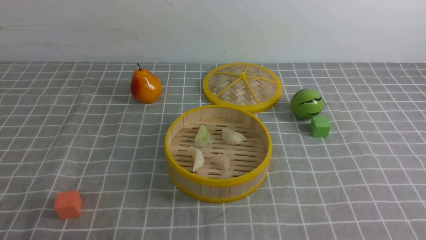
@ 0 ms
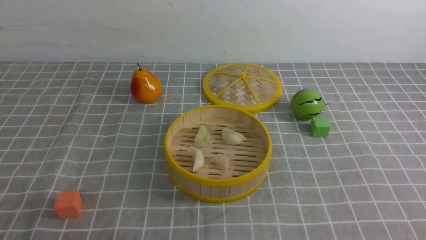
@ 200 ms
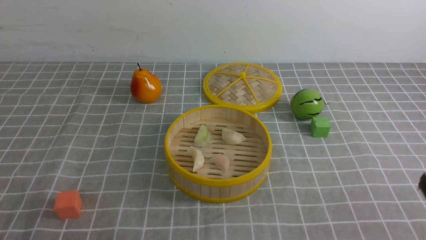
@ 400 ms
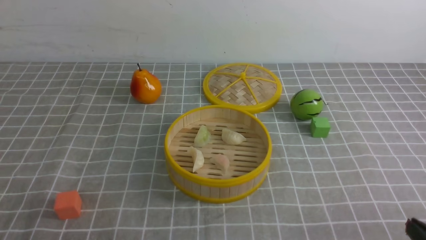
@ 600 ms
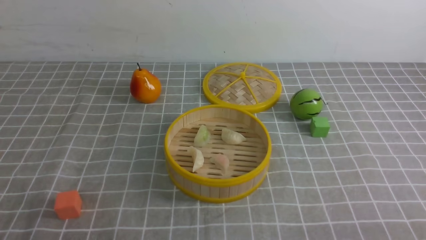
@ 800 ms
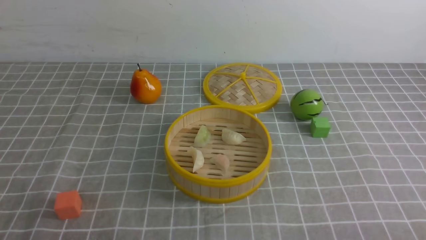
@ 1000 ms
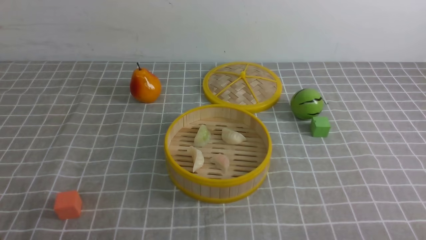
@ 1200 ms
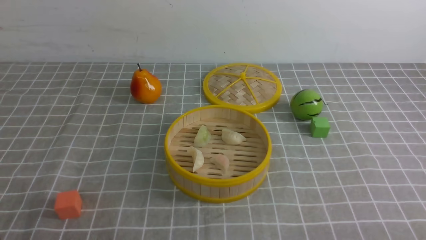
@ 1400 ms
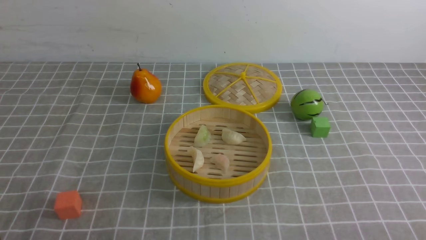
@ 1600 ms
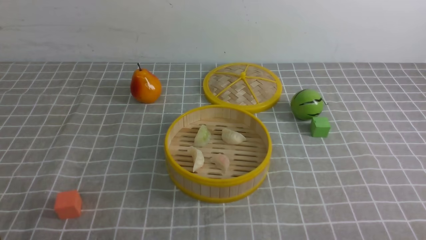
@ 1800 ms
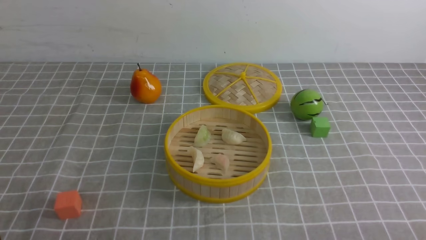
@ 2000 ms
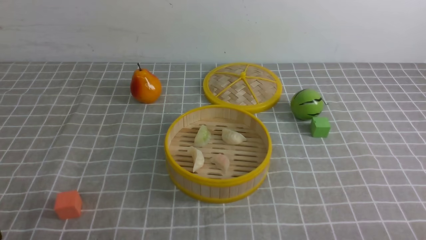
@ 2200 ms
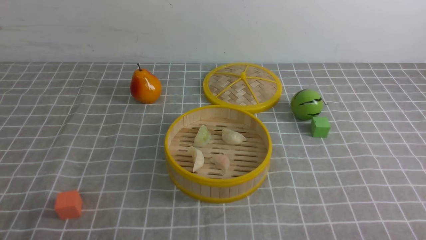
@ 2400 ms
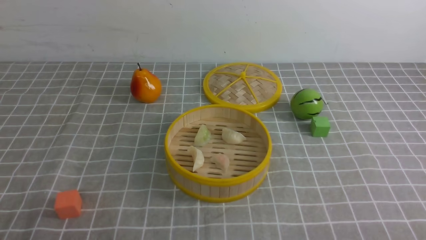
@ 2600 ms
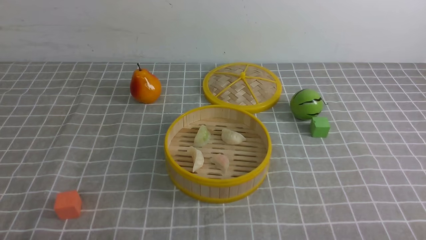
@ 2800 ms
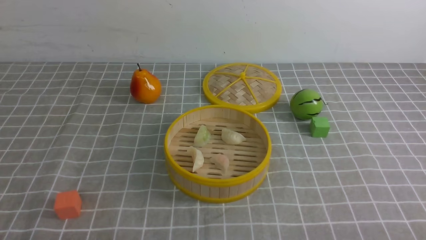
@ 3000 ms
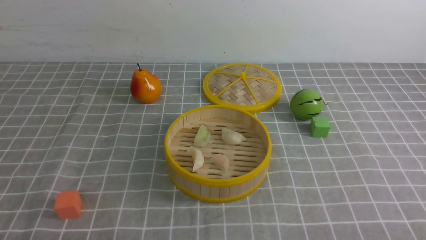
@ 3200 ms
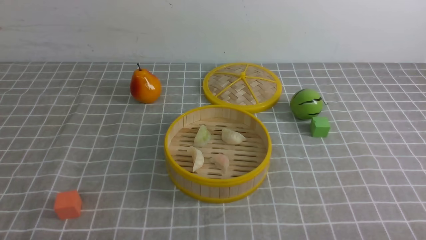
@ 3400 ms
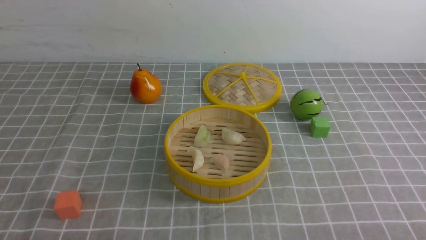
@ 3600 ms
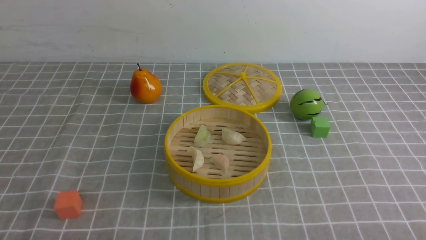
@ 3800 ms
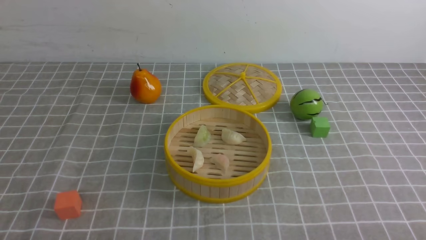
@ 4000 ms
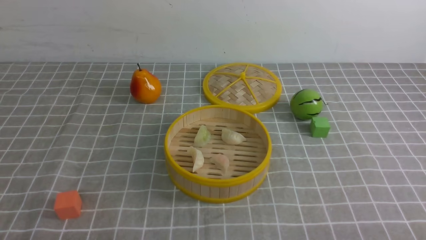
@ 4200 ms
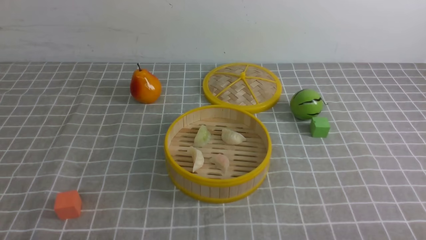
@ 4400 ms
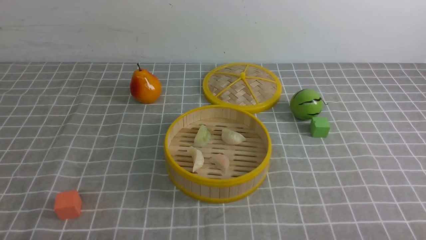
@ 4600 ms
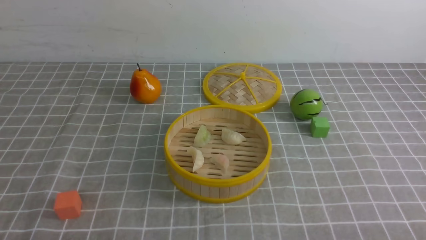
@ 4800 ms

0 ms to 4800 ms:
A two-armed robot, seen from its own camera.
Task of the whole recording: put the dumplings into the steamer on the table with the grey tablecloth.
3200 ms to 4800 ms: The two grippers keep their place.
